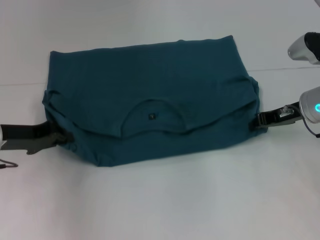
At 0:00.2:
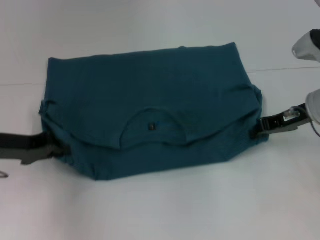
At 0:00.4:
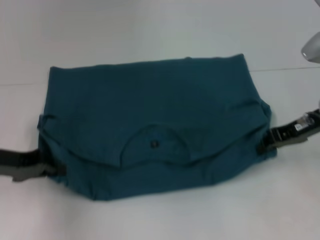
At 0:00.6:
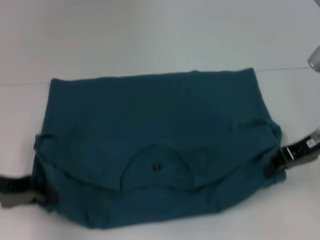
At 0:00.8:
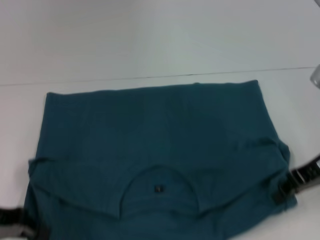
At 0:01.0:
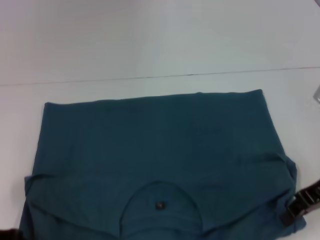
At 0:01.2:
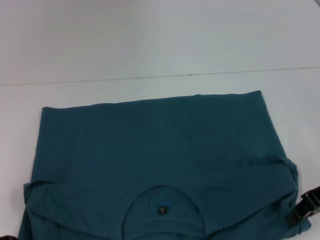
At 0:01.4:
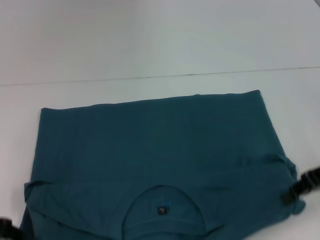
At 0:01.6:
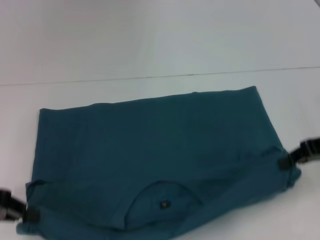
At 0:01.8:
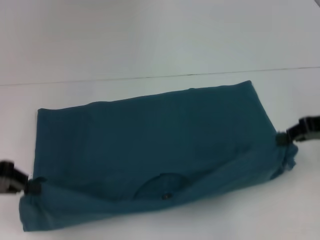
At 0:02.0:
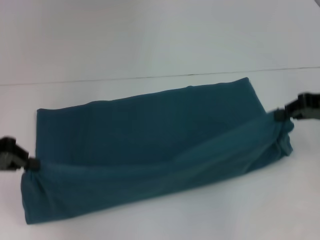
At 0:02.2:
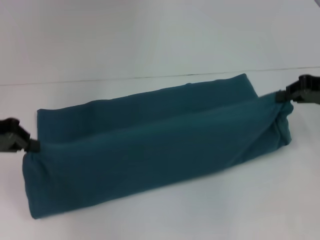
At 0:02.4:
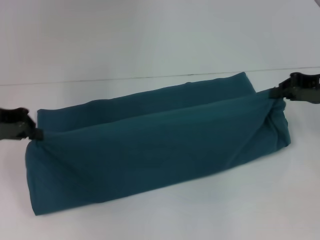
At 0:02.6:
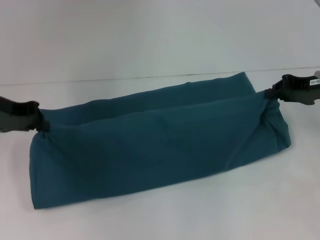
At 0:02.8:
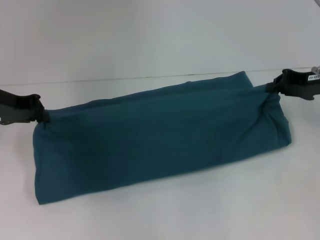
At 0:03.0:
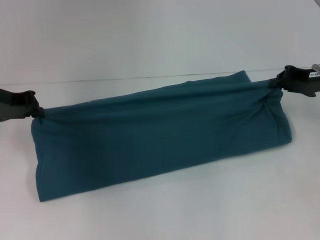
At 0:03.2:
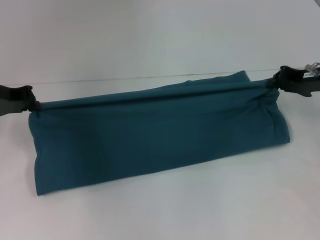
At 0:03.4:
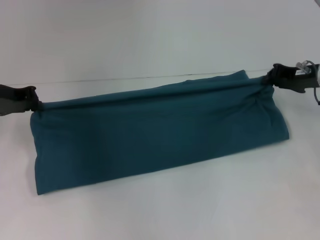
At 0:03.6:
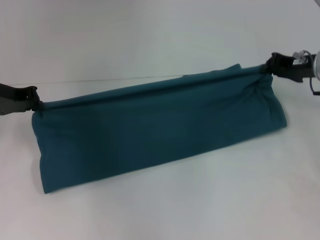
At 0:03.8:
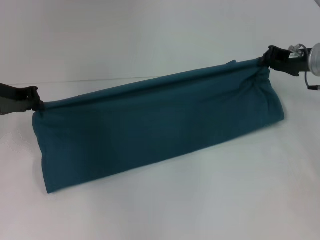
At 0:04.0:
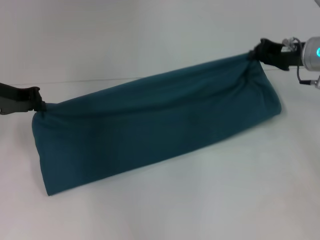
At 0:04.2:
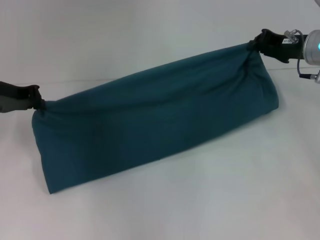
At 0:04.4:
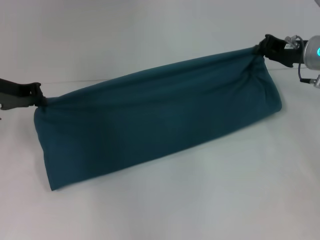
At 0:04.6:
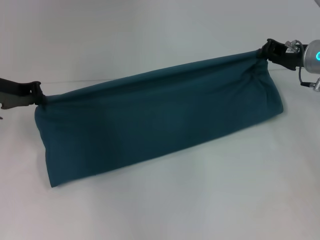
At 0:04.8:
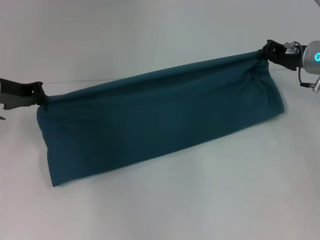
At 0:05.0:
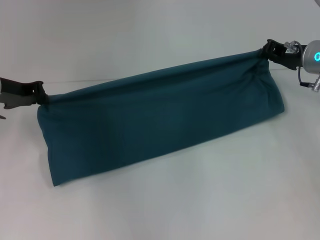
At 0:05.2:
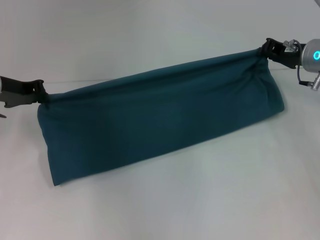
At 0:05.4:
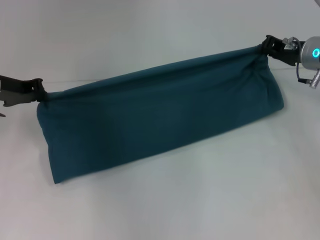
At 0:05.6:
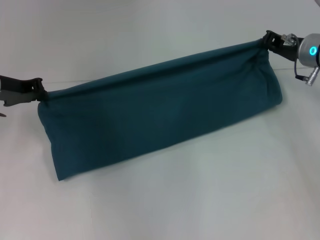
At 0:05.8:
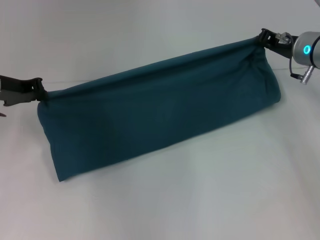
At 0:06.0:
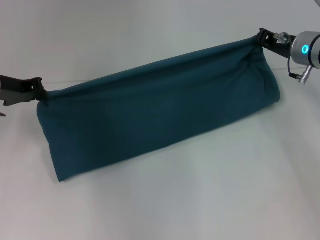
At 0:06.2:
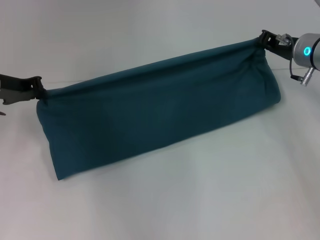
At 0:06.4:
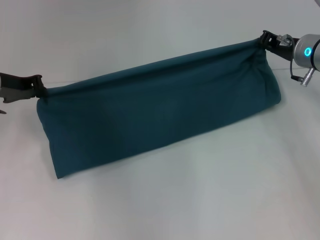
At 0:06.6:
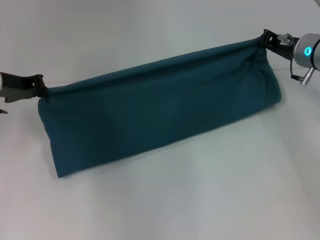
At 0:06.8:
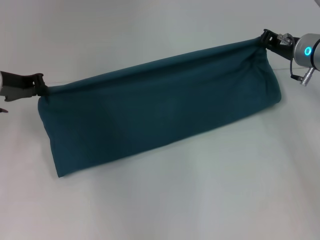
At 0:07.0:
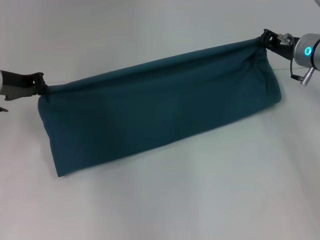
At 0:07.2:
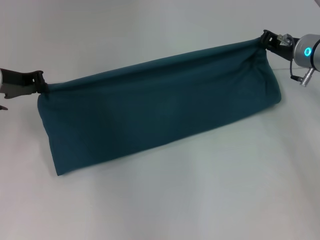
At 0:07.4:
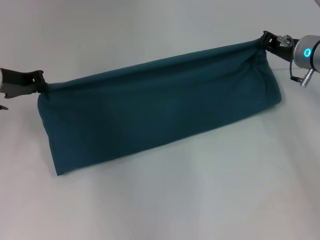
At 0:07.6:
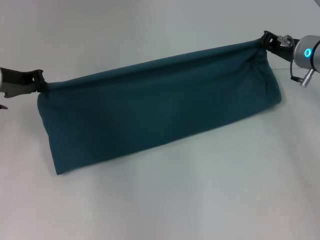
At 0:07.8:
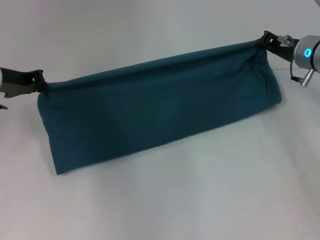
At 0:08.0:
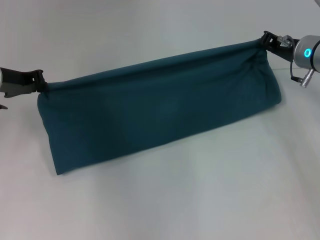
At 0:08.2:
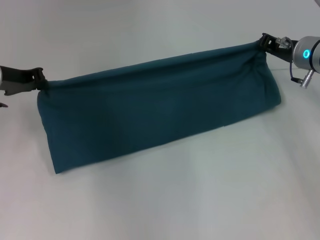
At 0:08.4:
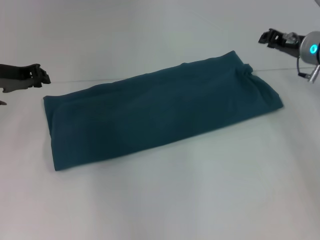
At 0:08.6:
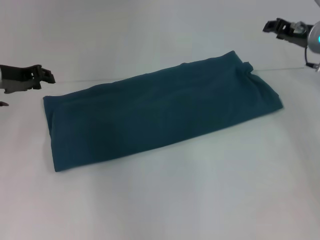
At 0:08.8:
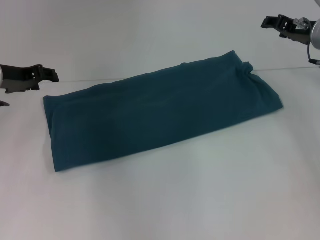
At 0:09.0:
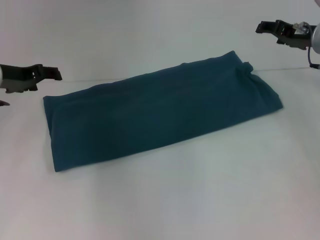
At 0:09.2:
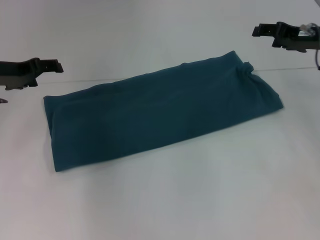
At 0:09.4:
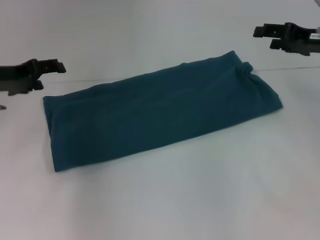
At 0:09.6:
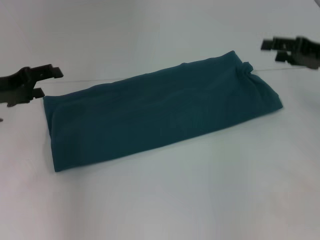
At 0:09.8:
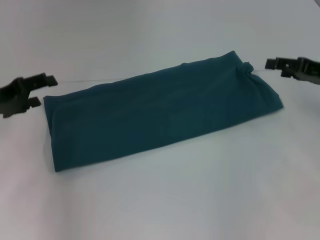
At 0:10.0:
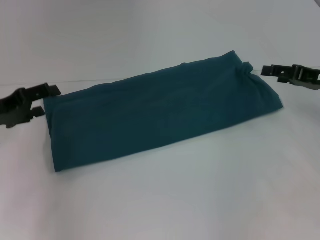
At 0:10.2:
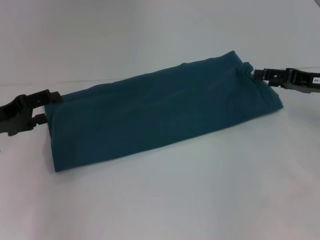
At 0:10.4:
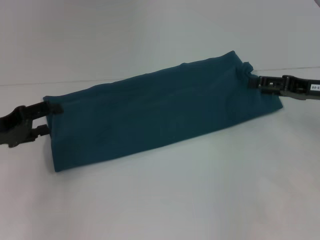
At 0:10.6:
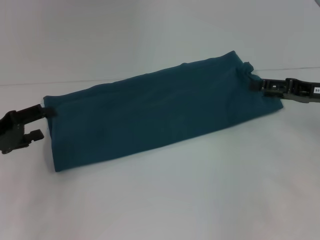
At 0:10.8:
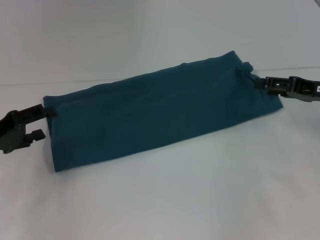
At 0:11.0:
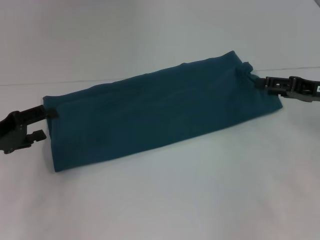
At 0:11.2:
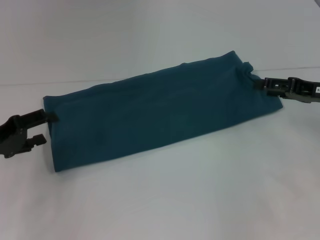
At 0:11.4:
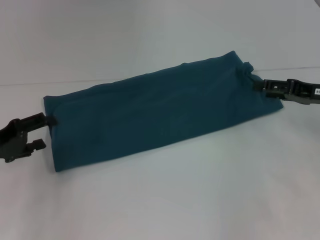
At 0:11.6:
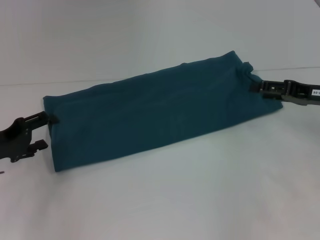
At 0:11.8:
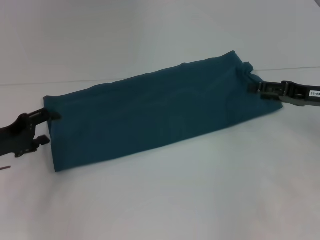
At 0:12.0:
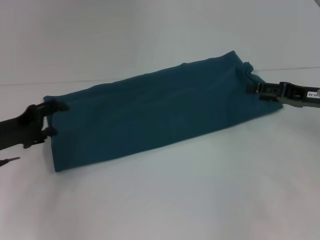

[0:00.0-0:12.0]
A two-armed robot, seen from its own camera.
Step, 0:01.0 to 0:08.4: Fold the clothes to the right.
0:00.0 to 0:01.6: The left gripper moves backward and to the left, roughly 10 cm; the right gripper travels backward and upward by roughly 10 cm.
0:01.6 to 0:03.0: The right gripper moves forward, some 5 cm. Meanwhile the left gripper is displaced forward by some 15 cm.
0:03.0 to 0:04.4: The right gripper moves roughly 5 cm.
0:04.4 to 0:06.0: The grippers stay close to where they were, moving slightly.
0:06.0 to 0:07.6: Both grippers stay about where they are.
0:07.6 to 0:09.0: The left gripper opens. Meanwhile the right gripper opens up.
0:09.0 to 0:10.4: The two grippers go approximately 10 cm backward. The left gripper opens its fingers.
0:10.4 to 0:12.0: The grippers stay close to where they were, moving slightly.

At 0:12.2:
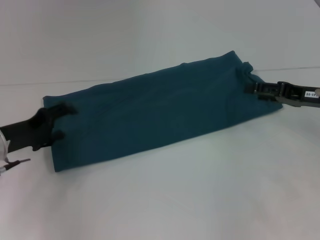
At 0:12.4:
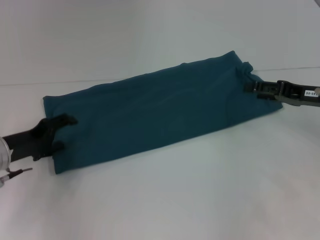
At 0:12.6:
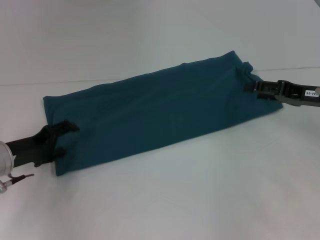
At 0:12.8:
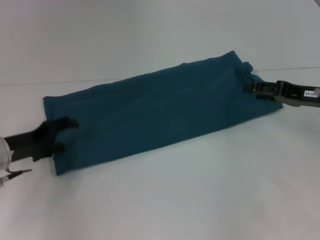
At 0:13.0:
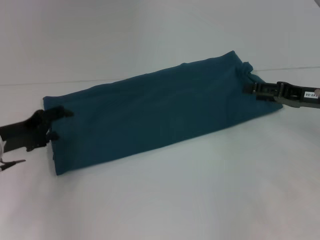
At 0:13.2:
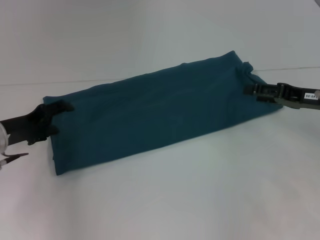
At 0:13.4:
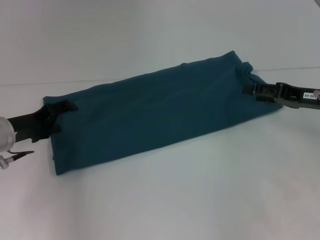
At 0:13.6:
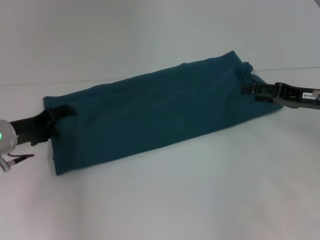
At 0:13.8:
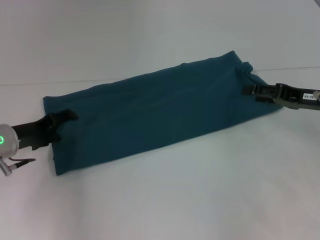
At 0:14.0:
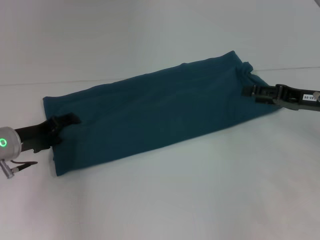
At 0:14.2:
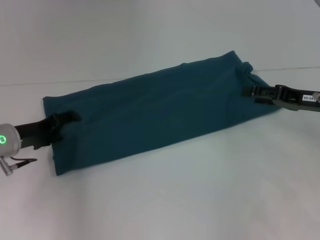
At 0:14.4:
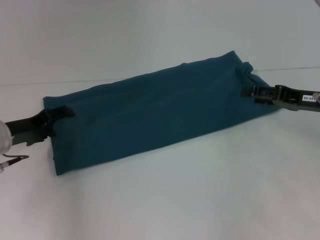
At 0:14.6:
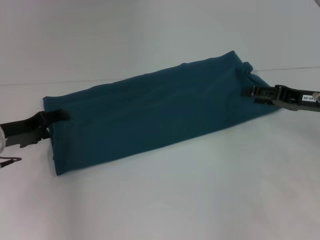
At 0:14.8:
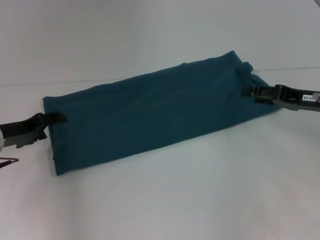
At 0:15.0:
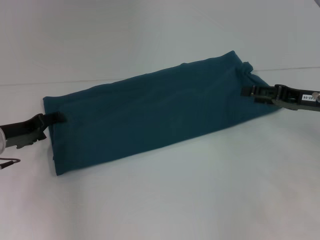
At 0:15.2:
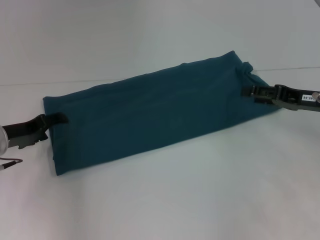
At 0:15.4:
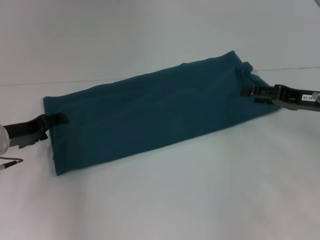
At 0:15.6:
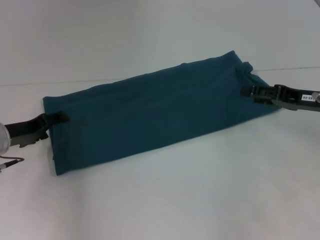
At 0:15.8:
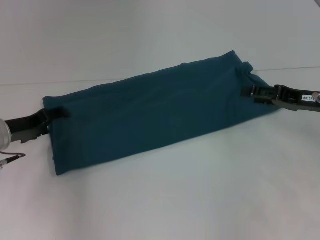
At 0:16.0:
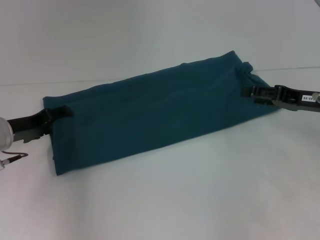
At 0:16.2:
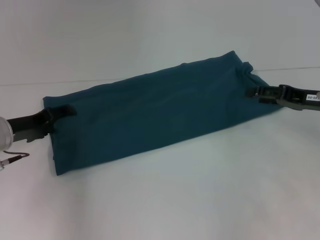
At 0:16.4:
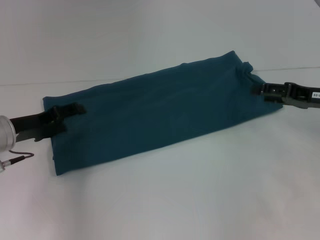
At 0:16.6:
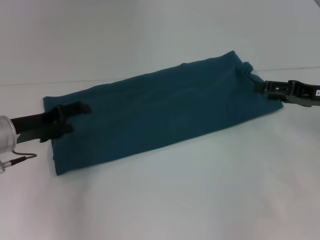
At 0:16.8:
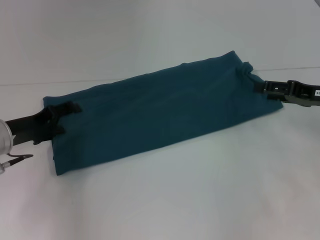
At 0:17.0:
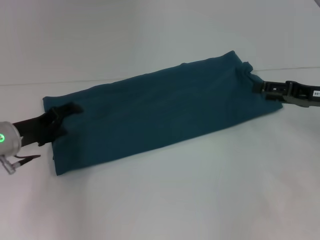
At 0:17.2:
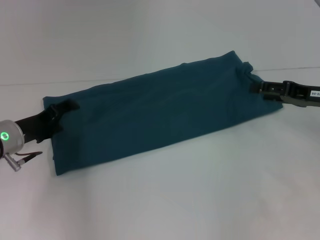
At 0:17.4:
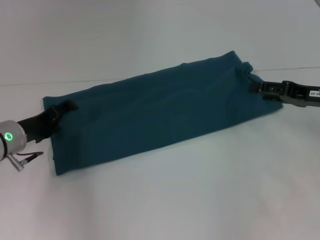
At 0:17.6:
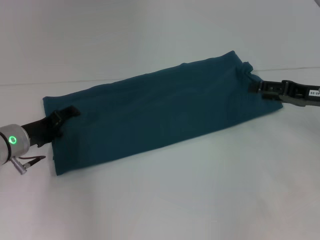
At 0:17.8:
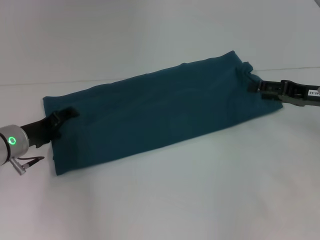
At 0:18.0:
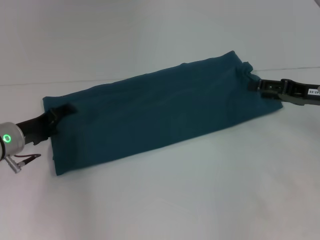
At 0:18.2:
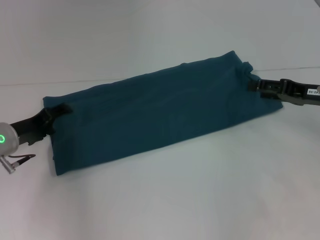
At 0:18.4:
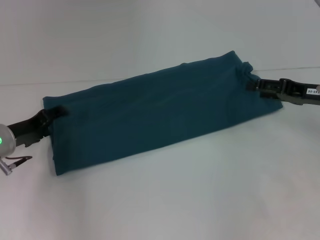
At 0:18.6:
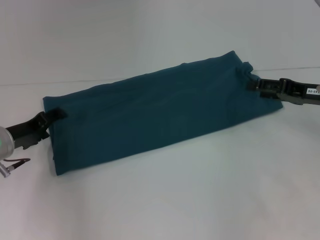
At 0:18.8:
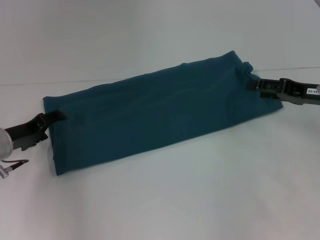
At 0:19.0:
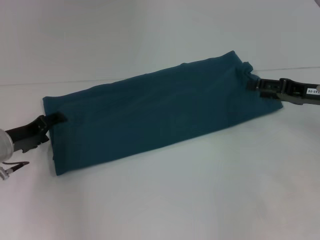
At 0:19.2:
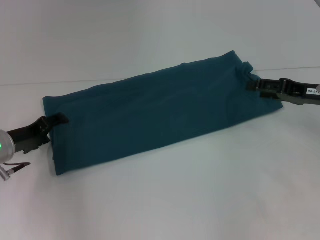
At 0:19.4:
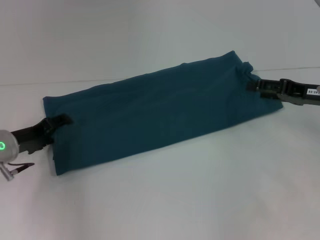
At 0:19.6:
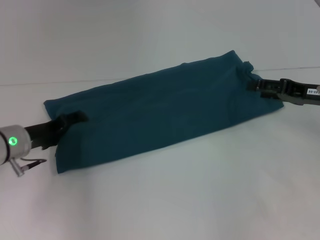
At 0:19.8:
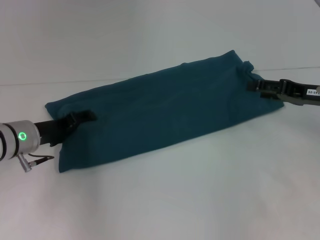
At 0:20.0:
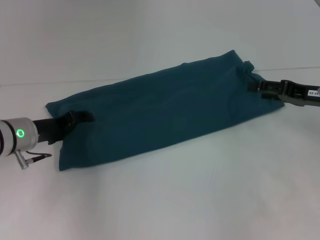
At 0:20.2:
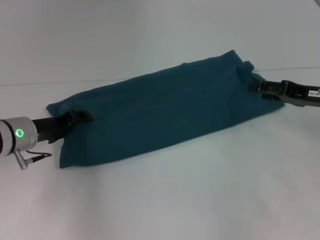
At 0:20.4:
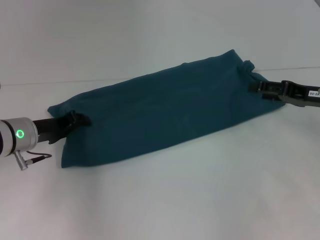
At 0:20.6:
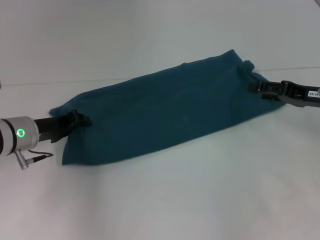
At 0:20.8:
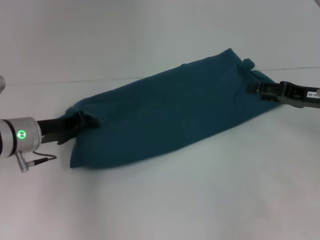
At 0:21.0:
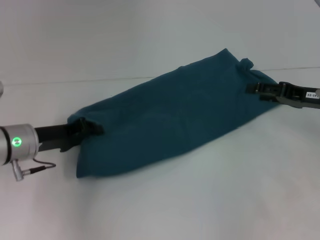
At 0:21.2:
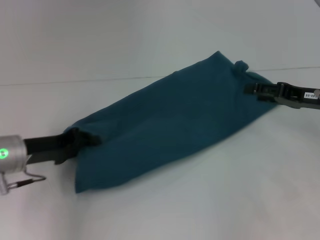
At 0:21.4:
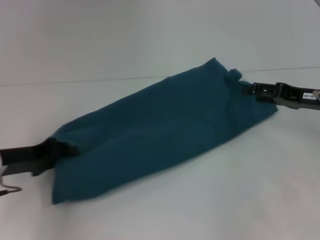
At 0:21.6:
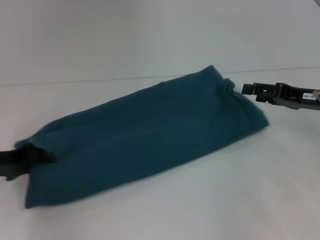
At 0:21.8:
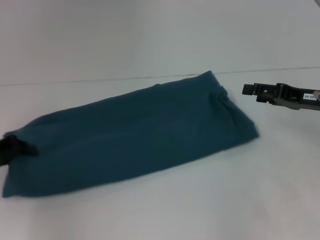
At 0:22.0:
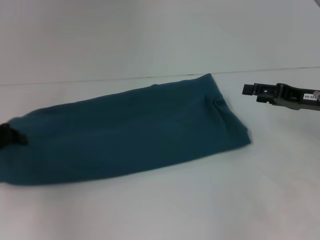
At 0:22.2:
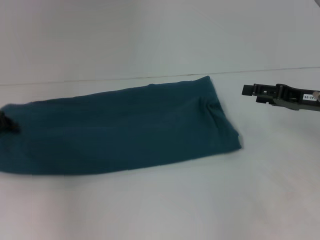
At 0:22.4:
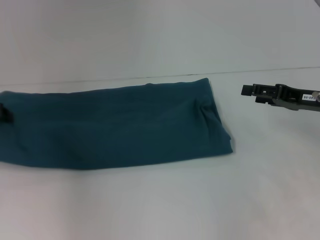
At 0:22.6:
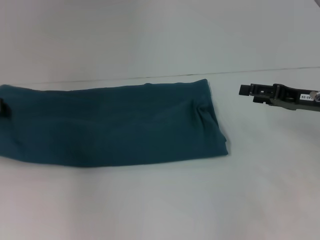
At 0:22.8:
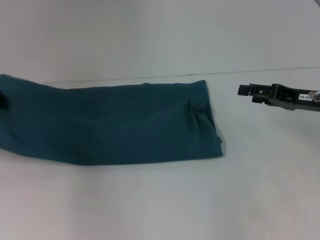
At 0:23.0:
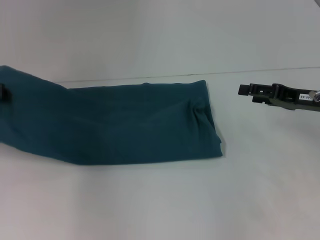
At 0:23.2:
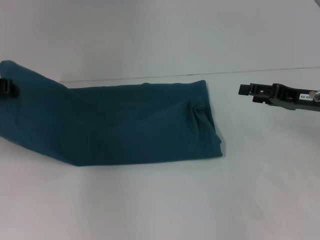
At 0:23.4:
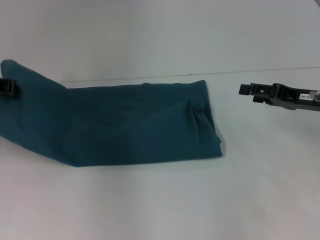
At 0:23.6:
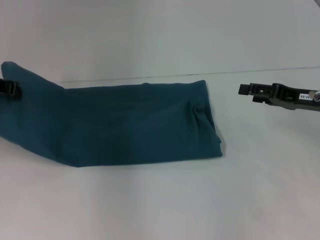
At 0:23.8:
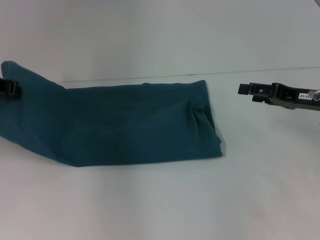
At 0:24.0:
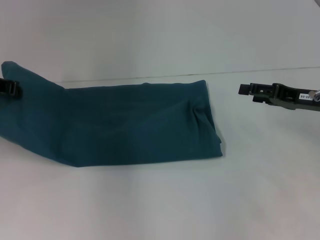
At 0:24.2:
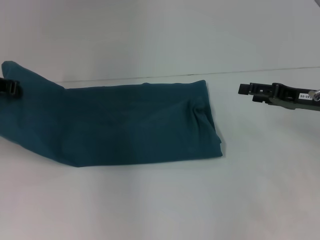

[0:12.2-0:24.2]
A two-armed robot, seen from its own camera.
0:12.2 to 0:15.2: The grippers make only small movements.
0:15.2 to 0:19.8: The grippers make only small movements.
0:19.8 to 0:21.2: The left gripper closes up.
0:21.2 to 0:22.6: The left gripper moves to the left, upward and forward, about 15 cm.
0:22.6 to 0:24.2: The left gripper ends up approximately 5 cm from where it was.
